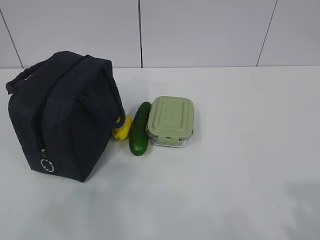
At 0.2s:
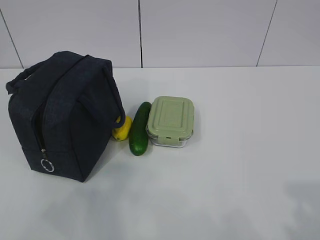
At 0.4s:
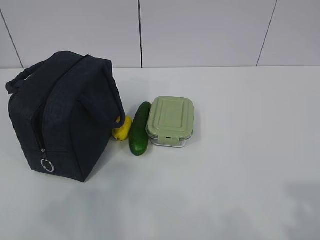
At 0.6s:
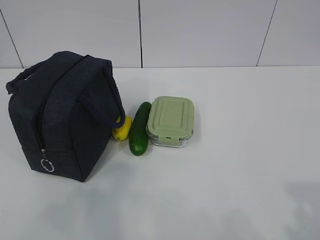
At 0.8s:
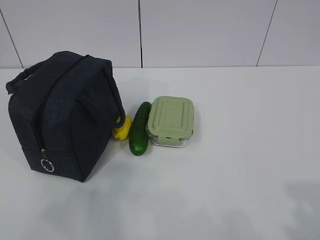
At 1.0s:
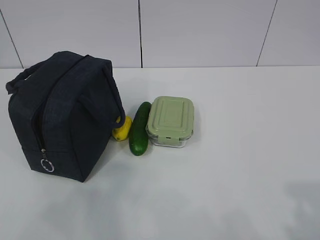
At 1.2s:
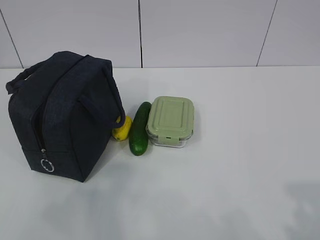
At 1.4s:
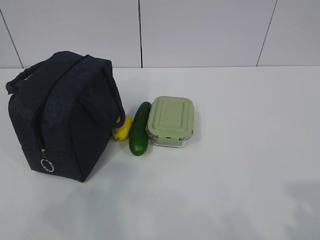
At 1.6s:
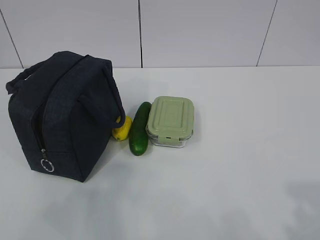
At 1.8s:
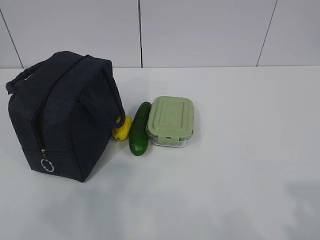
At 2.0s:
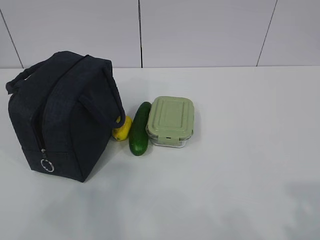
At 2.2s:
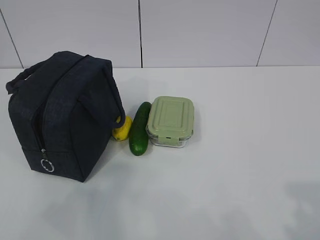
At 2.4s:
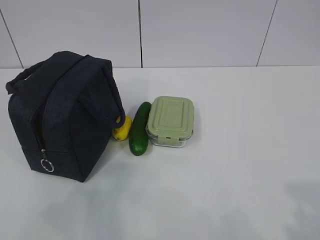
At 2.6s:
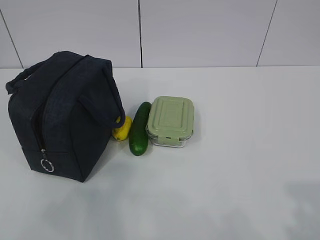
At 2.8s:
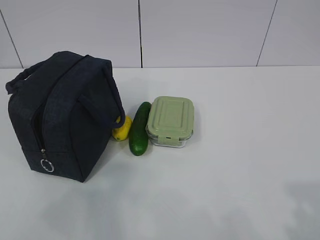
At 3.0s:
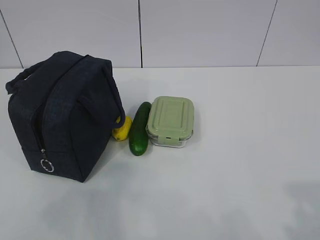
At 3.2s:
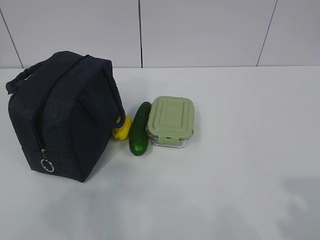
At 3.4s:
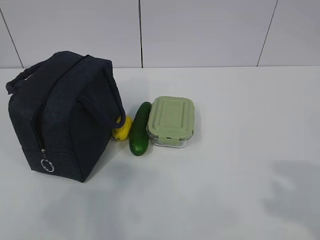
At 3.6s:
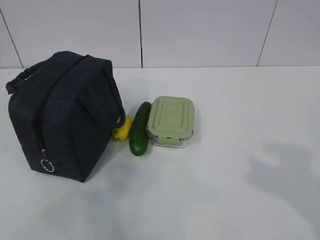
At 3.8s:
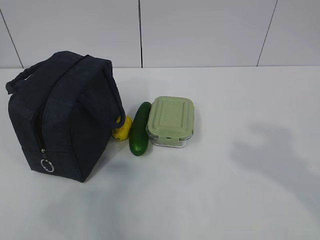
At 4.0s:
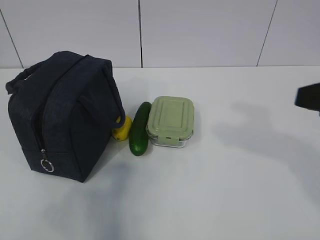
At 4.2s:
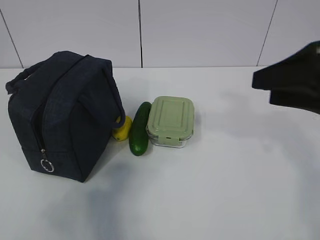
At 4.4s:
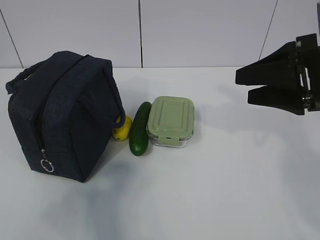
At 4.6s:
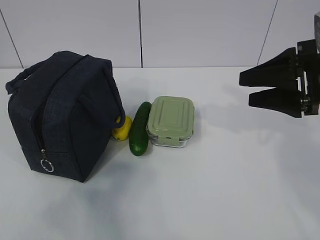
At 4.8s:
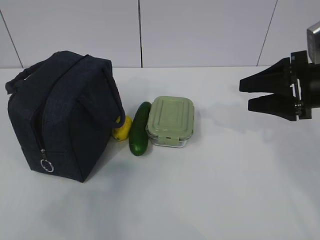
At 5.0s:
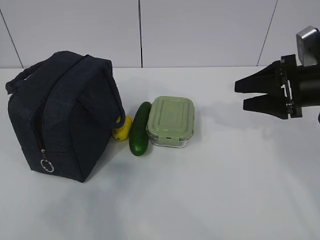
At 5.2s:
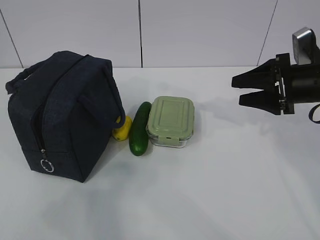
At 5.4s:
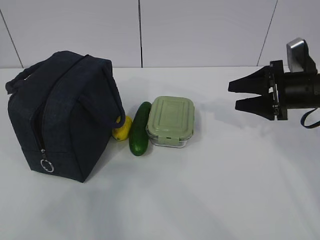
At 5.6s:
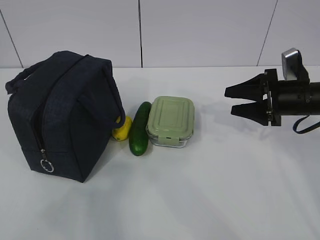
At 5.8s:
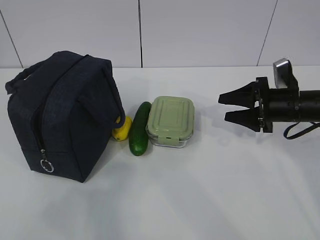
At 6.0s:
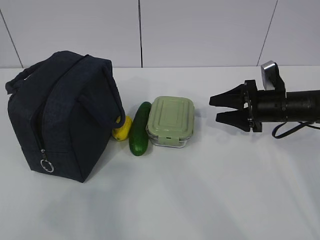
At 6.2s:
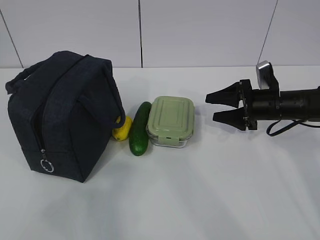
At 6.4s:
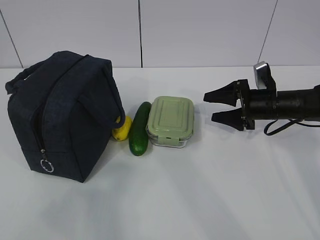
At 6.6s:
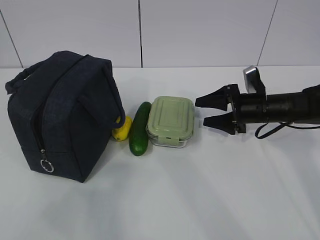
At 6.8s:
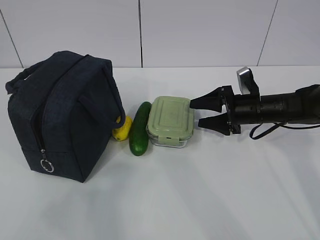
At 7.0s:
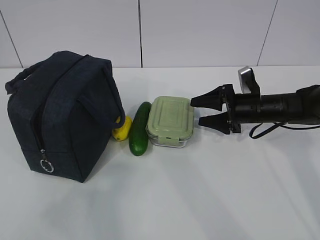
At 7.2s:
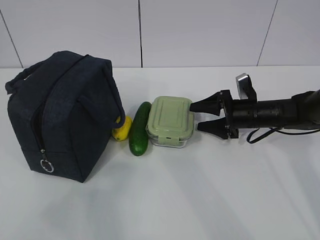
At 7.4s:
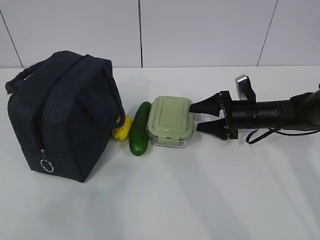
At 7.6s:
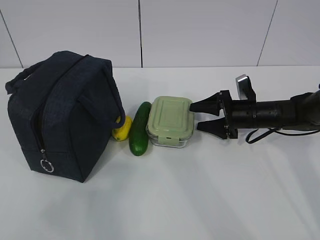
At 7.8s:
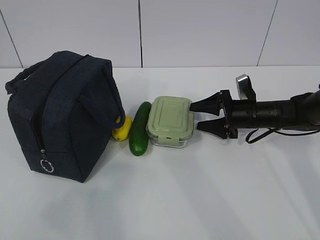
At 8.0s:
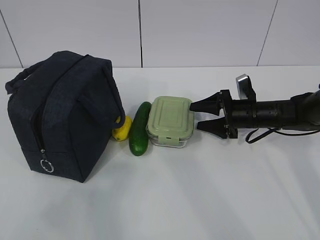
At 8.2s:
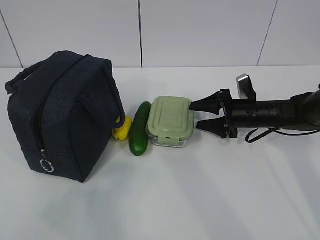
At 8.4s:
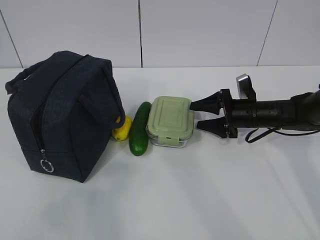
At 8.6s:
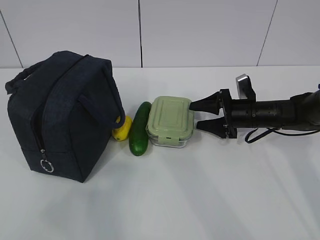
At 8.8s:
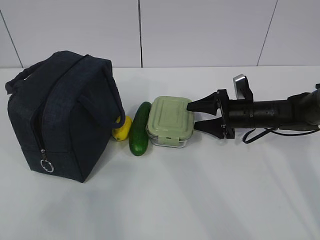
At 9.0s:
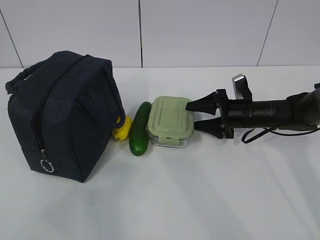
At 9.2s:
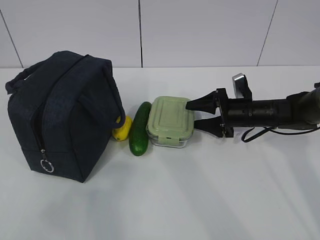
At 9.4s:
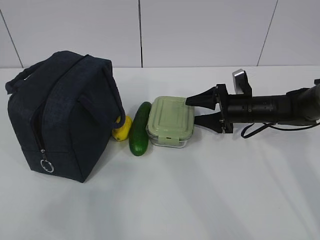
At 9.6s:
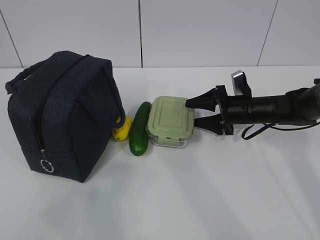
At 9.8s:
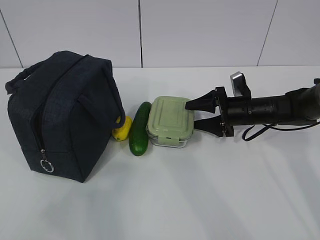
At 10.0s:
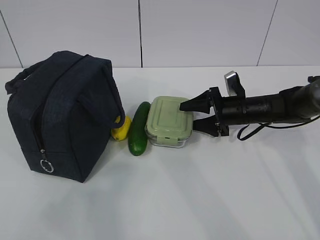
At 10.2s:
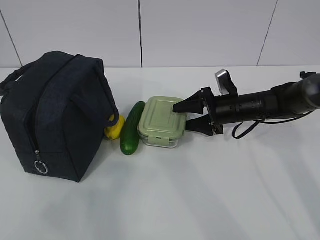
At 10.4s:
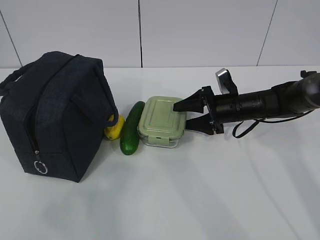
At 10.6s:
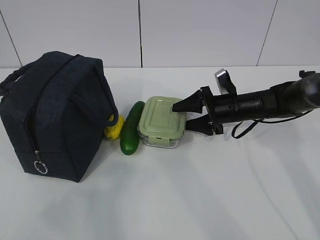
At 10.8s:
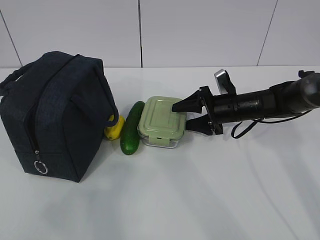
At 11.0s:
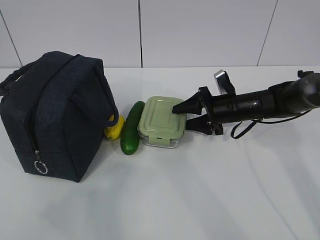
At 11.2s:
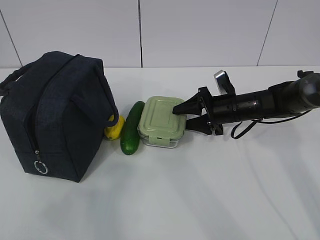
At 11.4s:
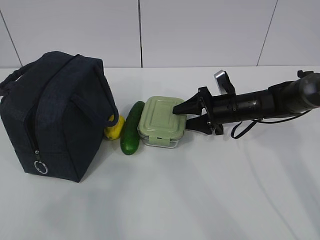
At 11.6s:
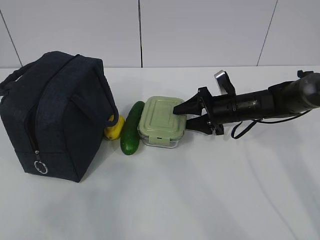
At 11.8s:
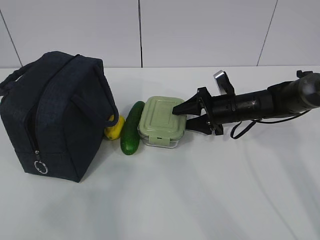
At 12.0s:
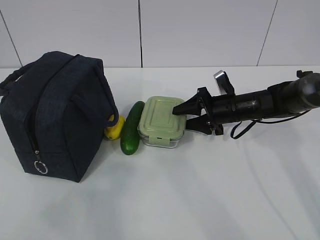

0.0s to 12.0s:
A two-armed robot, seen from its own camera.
1.6s to 3.0s: Both grippers stay put.
3.0s to 4.4s: The right gripper shifts about 25 cm forward.
4.4s to 6.0s: The right gripper heads downward and forward, covering approximately 20 cm.
6.0s to 7.6s: The right gripper changes place by roughly 5 cm.
7.6s to 9.0s: Neither gripper changes place.
9.0s to 10.4s: There are only small adjustments of the grippers.
10.4s to 12.0s: The two grippers keep their place.

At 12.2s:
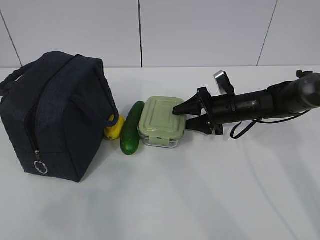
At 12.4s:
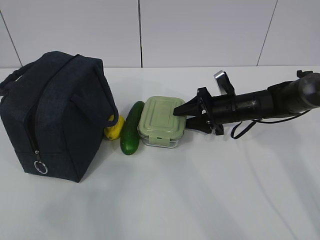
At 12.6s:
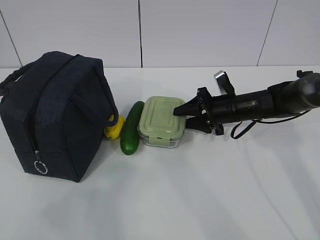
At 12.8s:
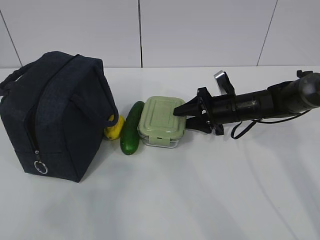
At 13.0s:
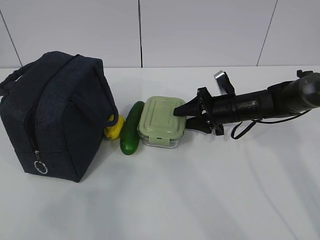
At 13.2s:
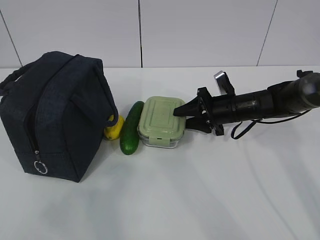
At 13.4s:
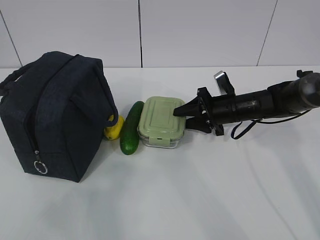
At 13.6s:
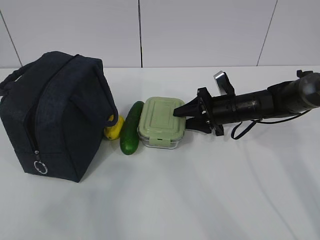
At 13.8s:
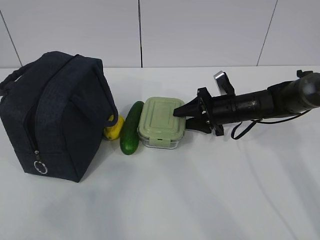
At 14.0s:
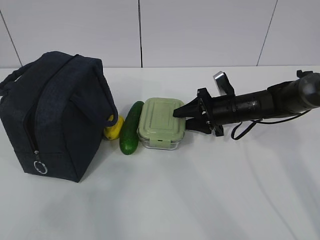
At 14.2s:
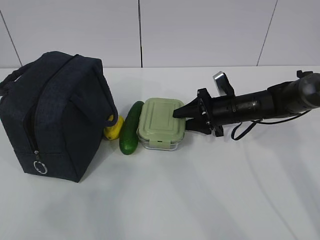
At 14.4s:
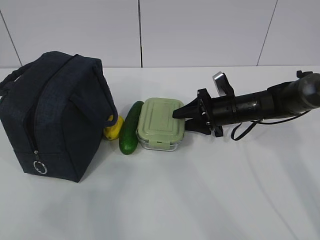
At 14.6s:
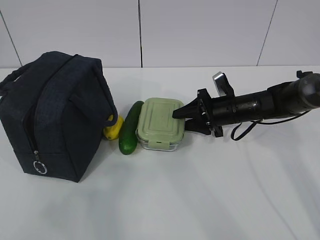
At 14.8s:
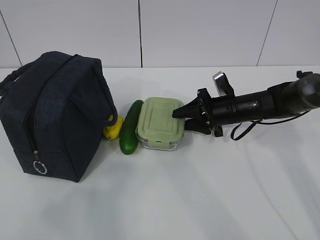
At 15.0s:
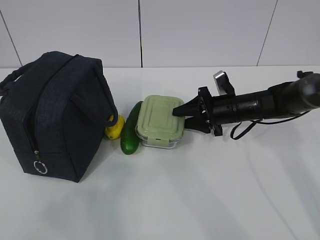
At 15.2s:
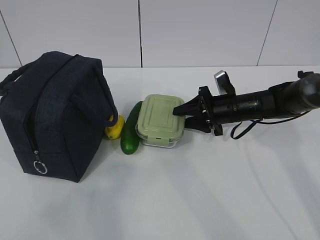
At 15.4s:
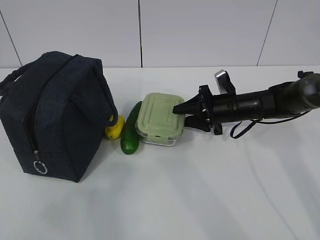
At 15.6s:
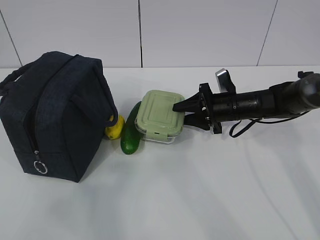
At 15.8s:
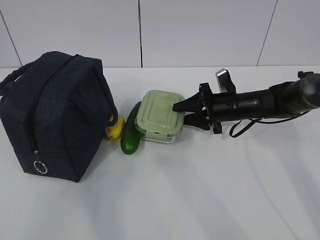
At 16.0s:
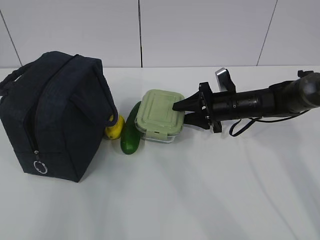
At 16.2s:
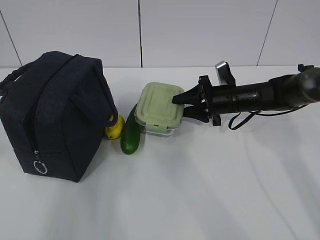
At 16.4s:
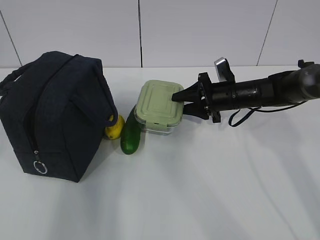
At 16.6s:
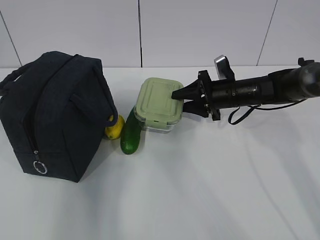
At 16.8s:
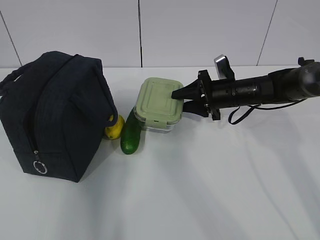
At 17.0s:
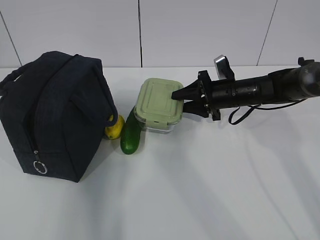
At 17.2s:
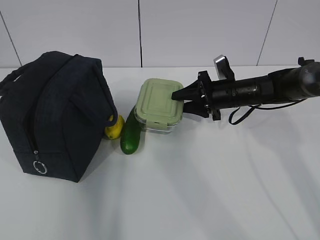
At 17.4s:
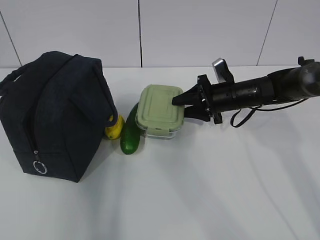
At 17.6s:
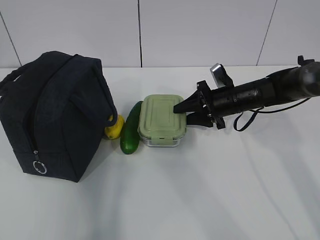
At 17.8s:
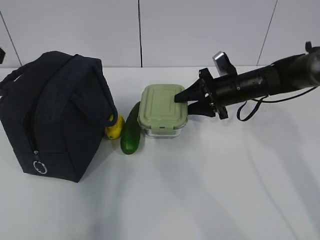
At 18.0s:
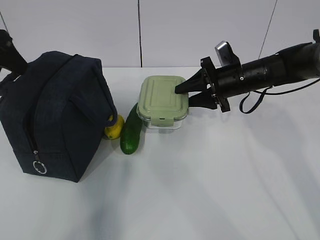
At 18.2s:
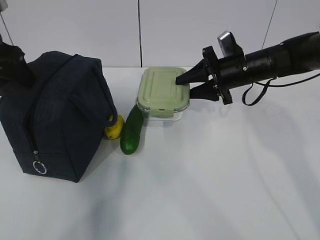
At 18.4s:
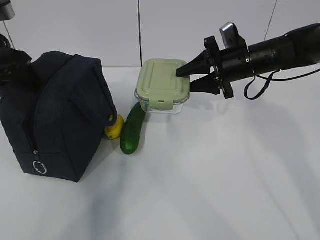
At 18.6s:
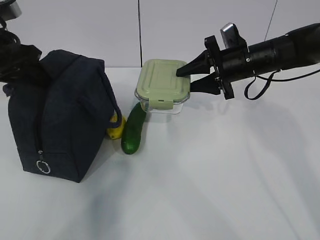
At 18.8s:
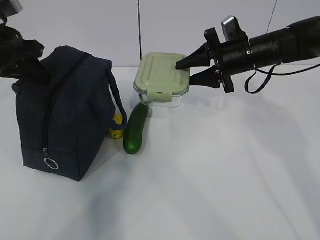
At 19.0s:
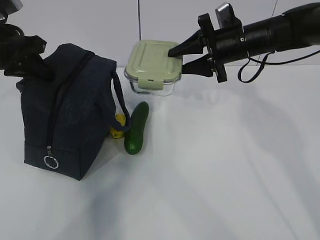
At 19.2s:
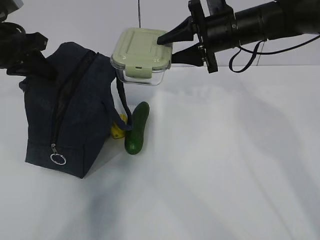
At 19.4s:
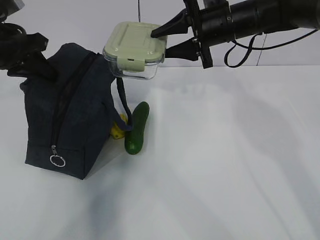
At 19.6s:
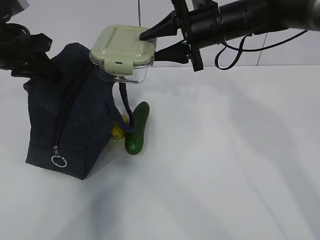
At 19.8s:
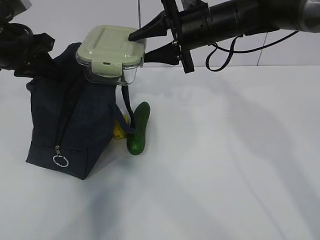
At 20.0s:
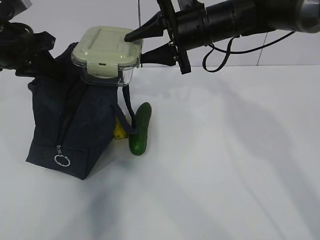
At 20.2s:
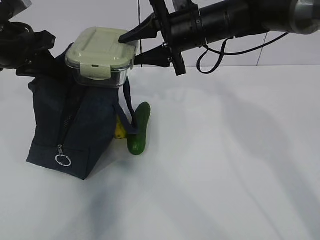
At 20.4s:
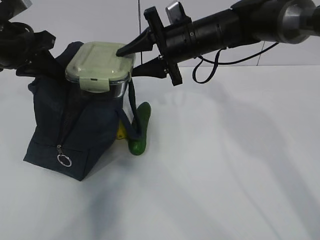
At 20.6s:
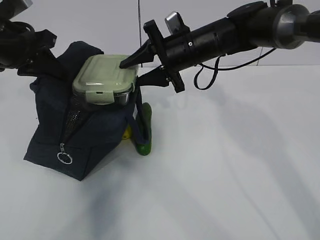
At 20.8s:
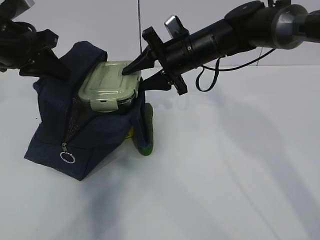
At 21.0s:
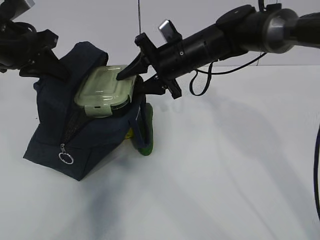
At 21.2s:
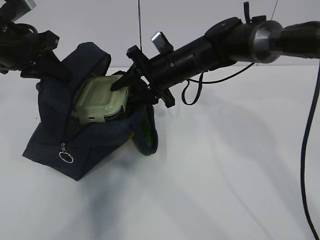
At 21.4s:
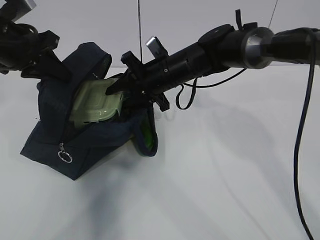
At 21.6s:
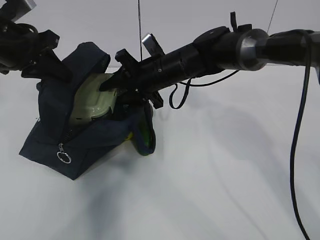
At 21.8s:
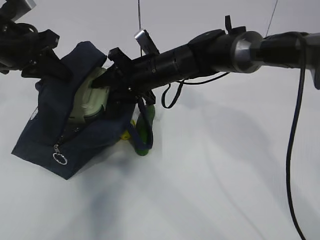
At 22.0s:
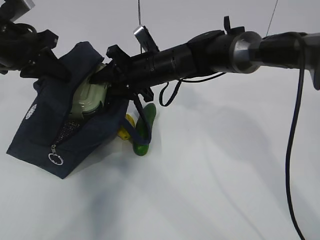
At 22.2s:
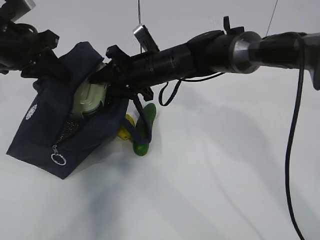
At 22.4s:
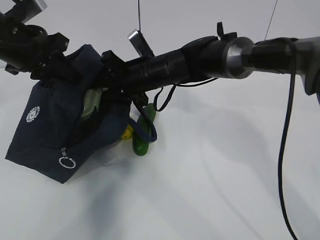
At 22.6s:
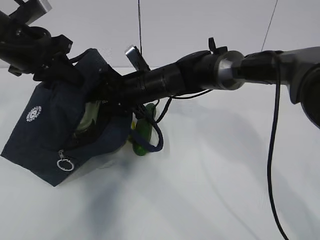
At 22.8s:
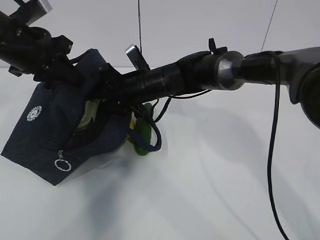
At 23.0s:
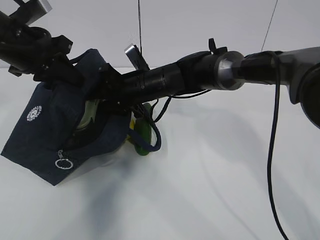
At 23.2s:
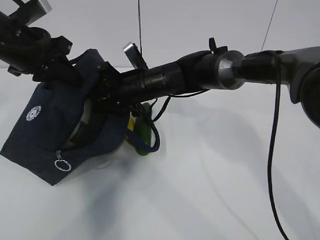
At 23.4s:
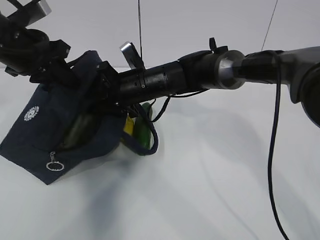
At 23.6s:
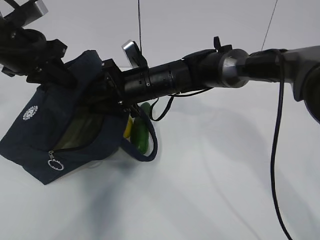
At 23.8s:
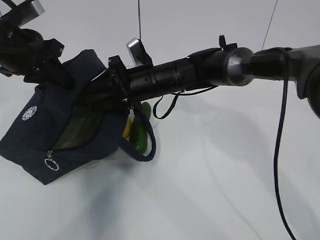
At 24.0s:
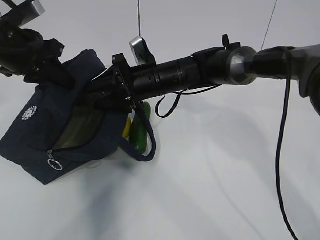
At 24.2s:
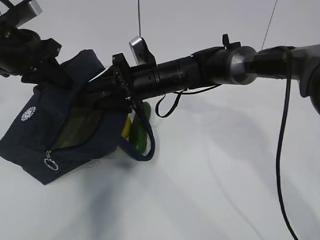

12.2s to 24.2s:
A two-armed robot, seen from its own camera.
Step, 12.4s to 16.6s: Grab the lunch bag with your left hand.
Step, 16.8s to 19.8s: Place it into the bag with your right hand.
12.2s to 15.2s: The two grippers keep their place.
15.2s to 16.6s: The left gripper shifts about 20 cm forward.
16.6s to 18.2s: The right gripper goes approximately 5 cm upward, while the left gripper goes roughly 15 cm forward and downward.
18.2s to 19.8s: The right gripper travels upward and to the left by approximately 10 cm. The left gripper closes up.
19.8s to 21.2s: The right gripper shifts approximately 10 cm downward and to the left.
21.2s to 22.6s: The right gripper heads to the left, covering approximately 5 cm.
22.6s to 24.2s: The grippers make only small movements.
